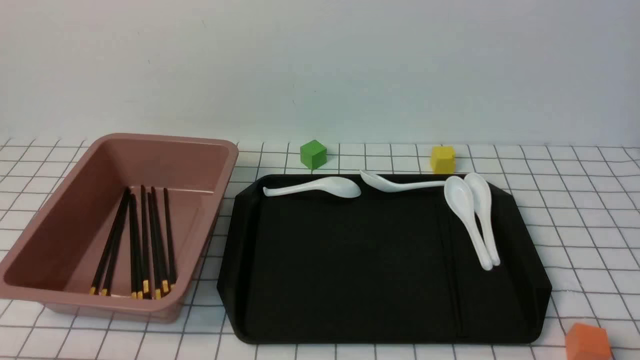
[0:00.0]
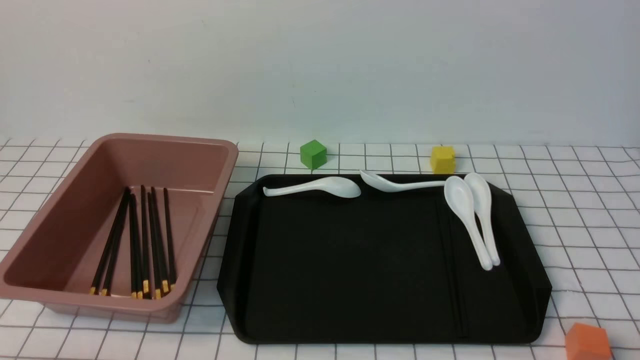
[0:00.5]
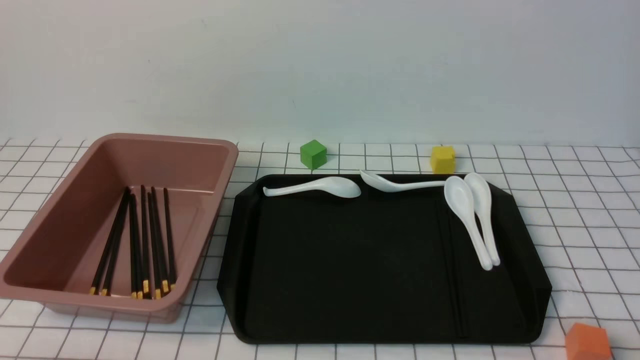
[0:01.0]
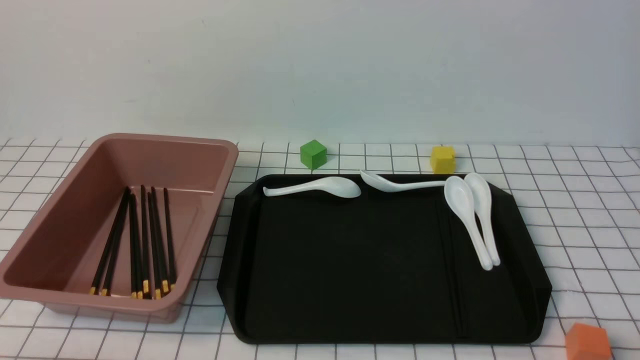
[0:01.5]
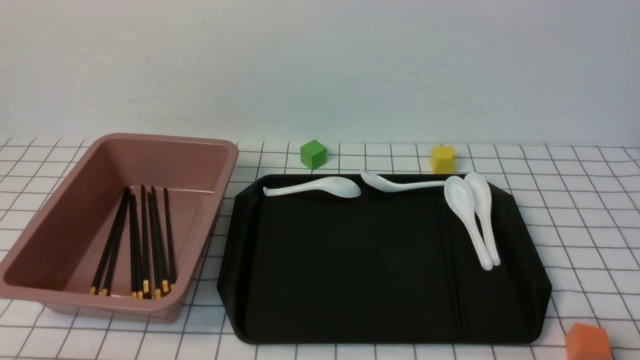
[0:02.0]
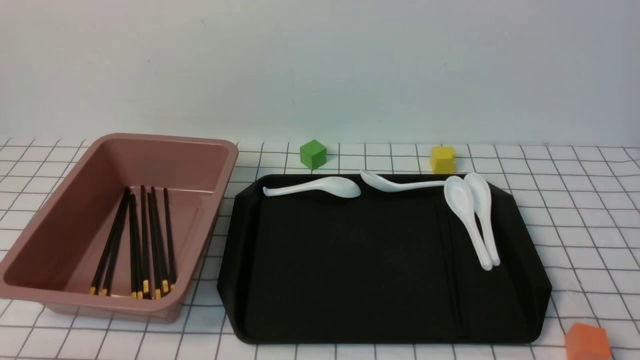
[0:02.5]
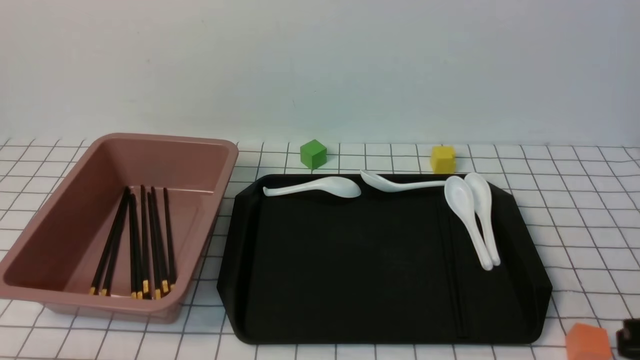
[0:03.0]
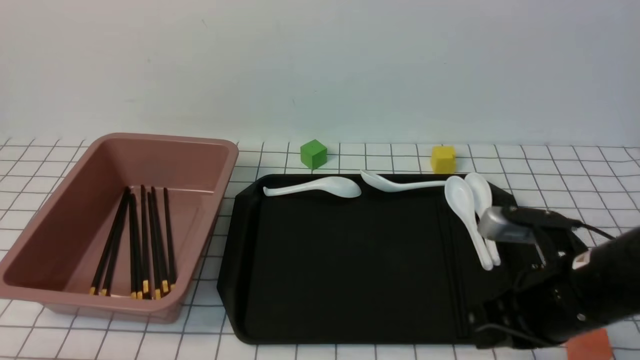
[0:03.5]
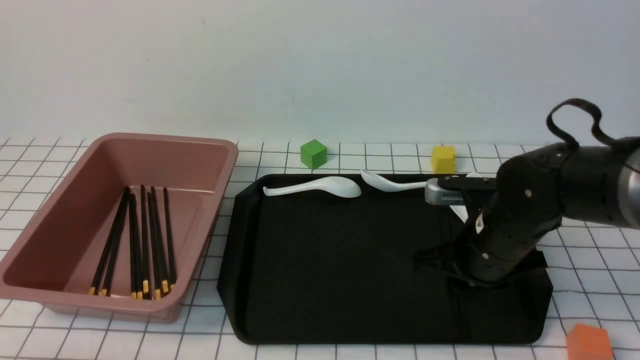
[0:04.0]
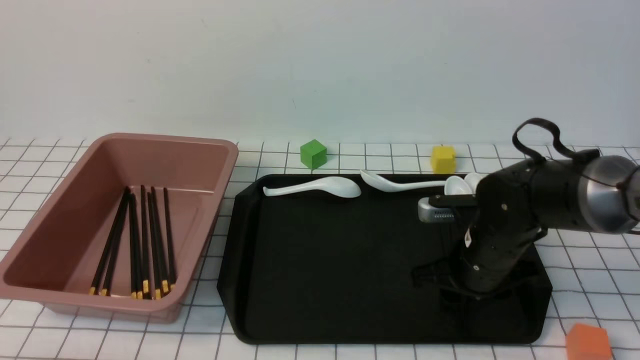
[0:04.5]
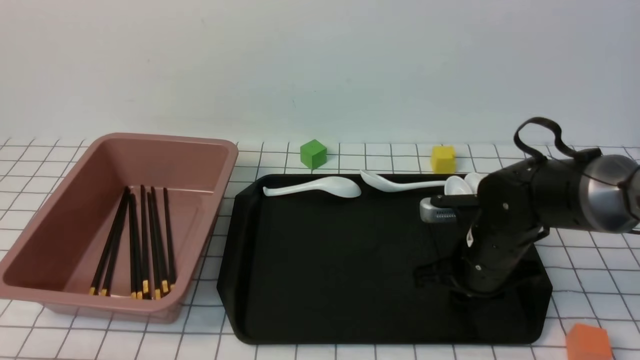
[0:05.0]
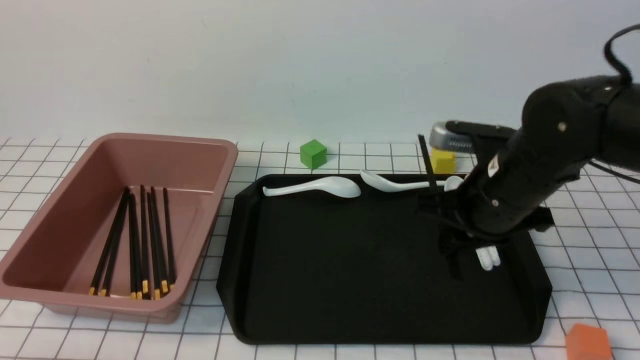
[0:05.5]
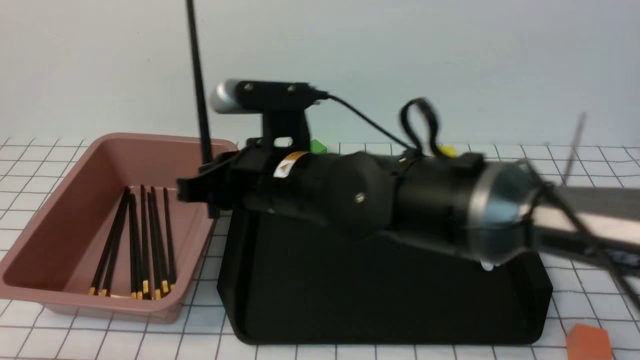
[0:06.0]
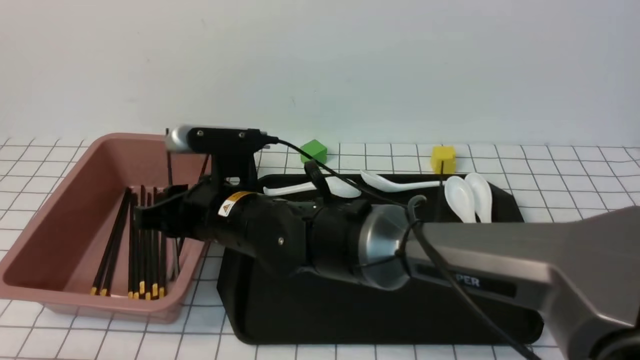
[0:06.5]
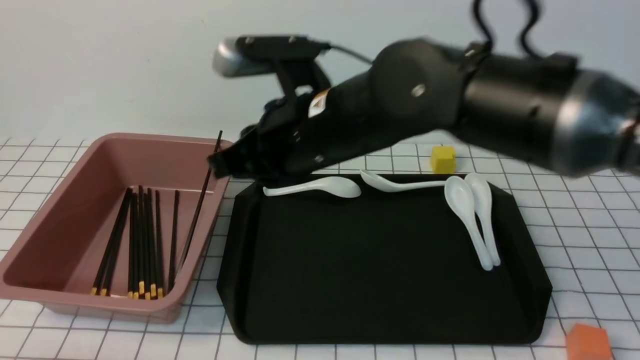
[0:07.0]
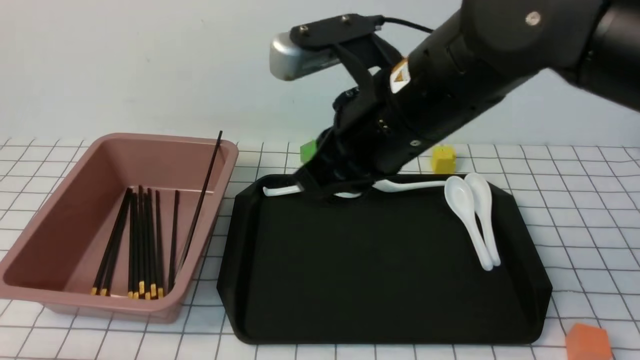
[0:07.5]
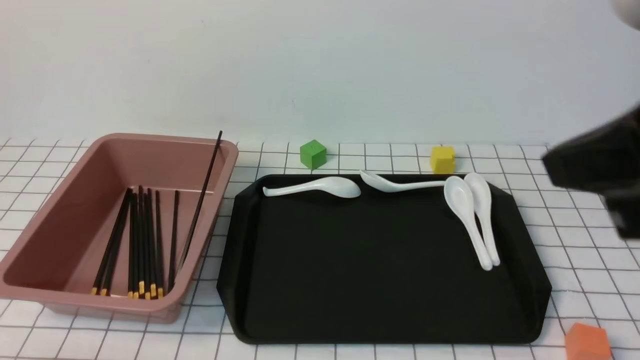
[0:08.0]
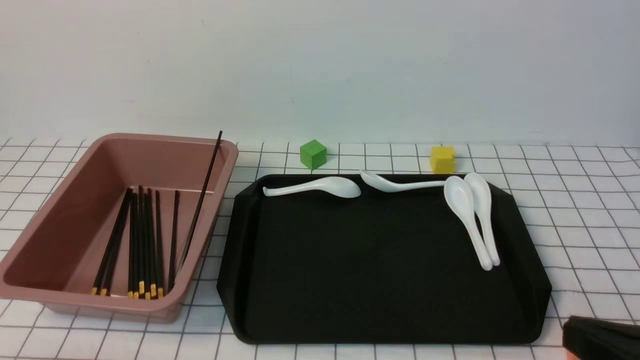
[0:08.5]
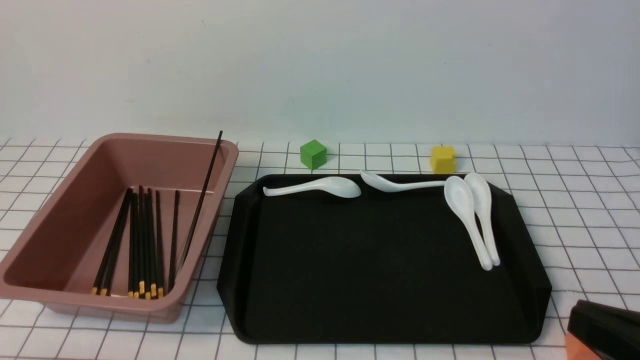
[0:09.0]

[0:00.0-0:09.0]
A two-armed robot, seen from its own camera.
Step, 0:00.0 to 0:05.5: use the right arm to grab a pair of chopsticks.
Step, 0:06.0 to 0:06.5: use the right arm to put the chopsticks into the lunch box.
0:02.0 to 0:04.5: The right gripper heads forward and to the left, covering roughly 30 cm, and closes and opens again.
0:04.5 to 0:07.0: The right gripper goes approximately 25 cm to the left and upward, and closes.
0:07.0 to 0:09.0: The right gripper moves to the right and backward, about 35 cm, and closes its fingers.

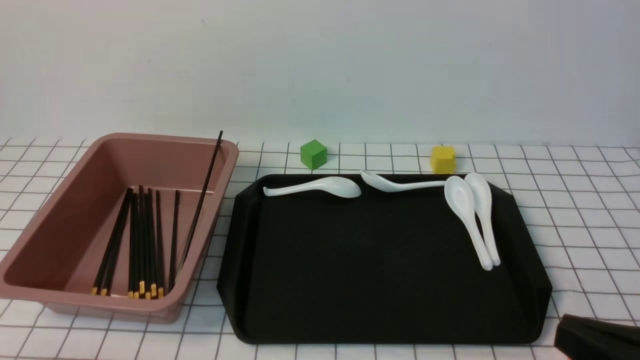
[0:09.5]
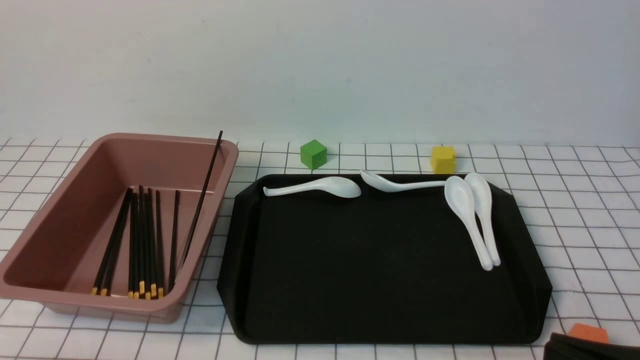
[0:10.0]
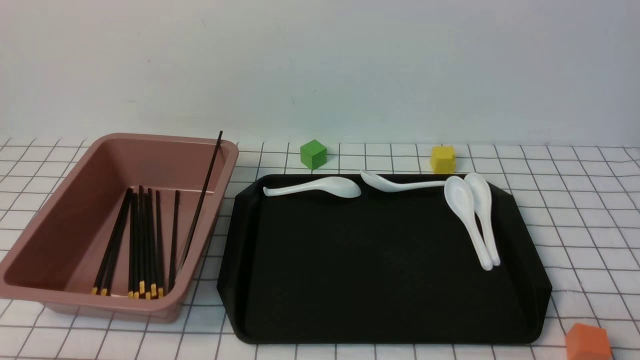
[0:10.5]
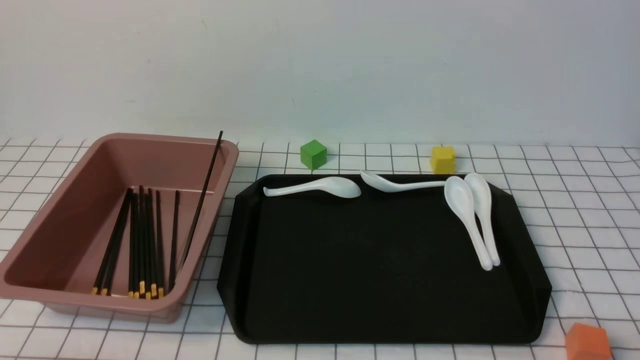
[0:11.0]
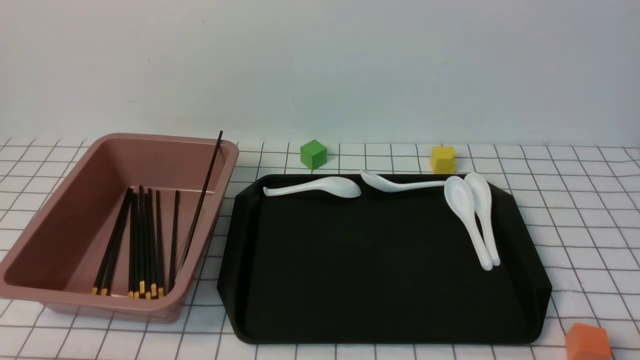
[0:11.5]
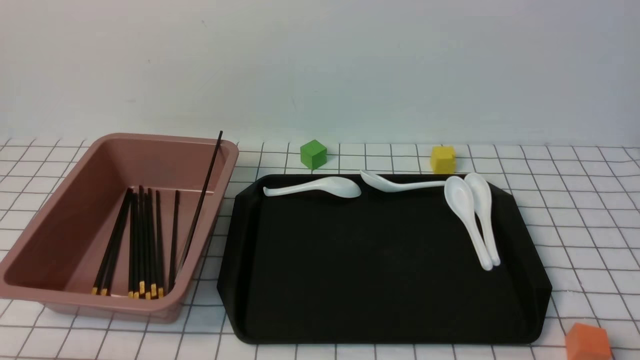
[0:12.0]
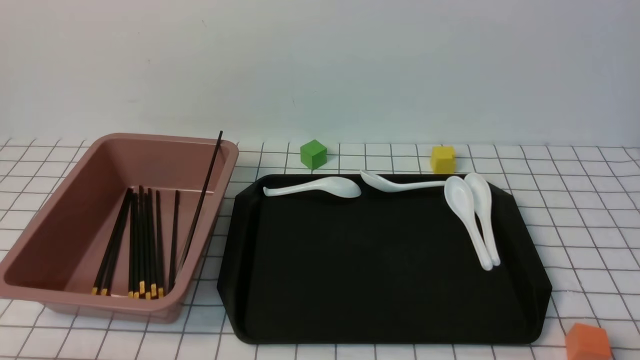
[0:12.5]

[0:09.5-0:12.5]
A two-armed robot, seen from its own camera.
0:09.5 to 0:11.0: The right gripper shifts roughly 10 cm downward and to the right.
0:11.0 to 0:12.5: Both grippers stay put.
